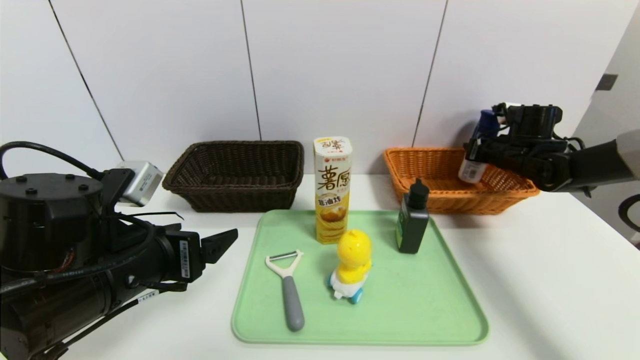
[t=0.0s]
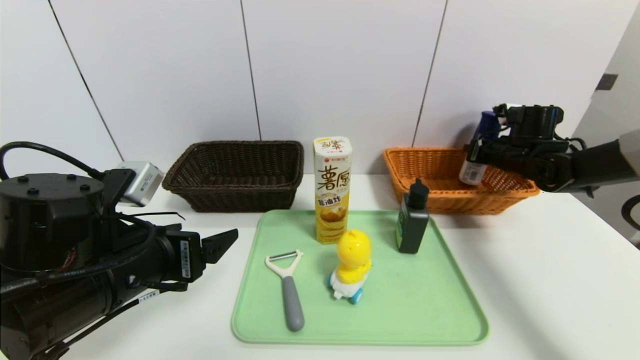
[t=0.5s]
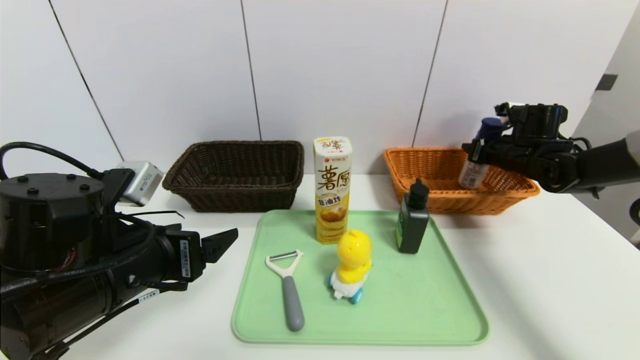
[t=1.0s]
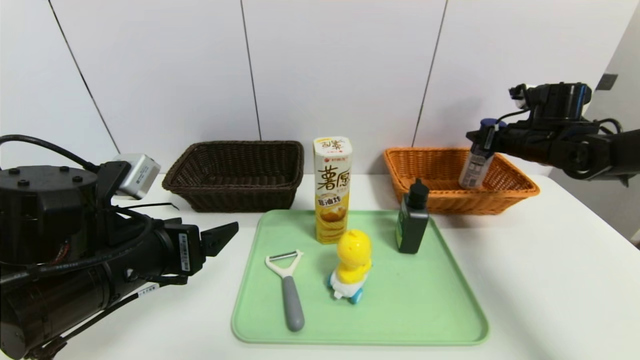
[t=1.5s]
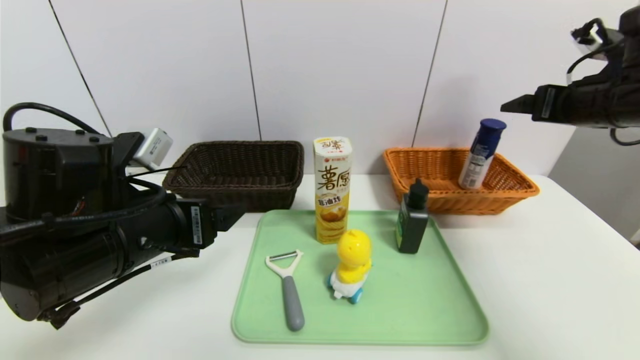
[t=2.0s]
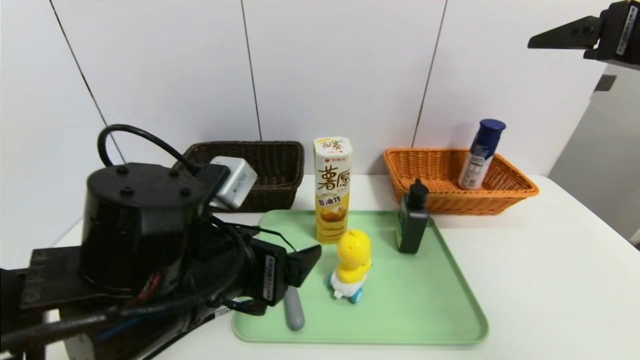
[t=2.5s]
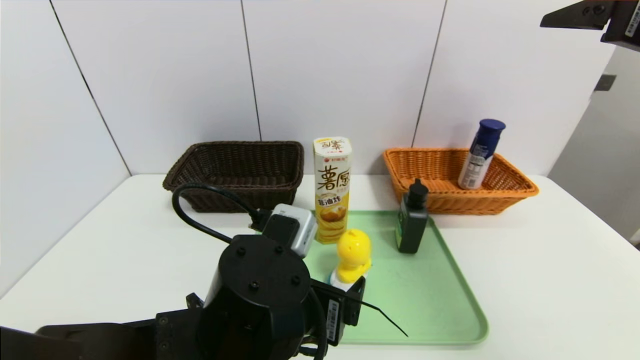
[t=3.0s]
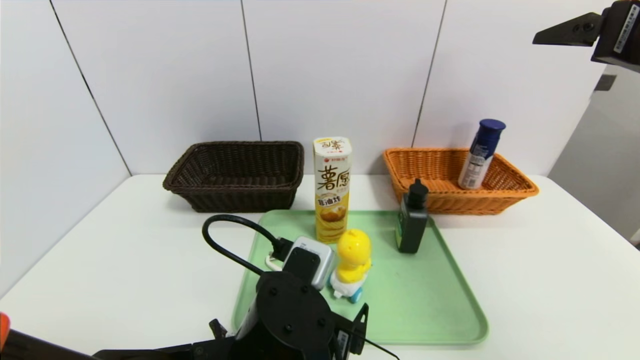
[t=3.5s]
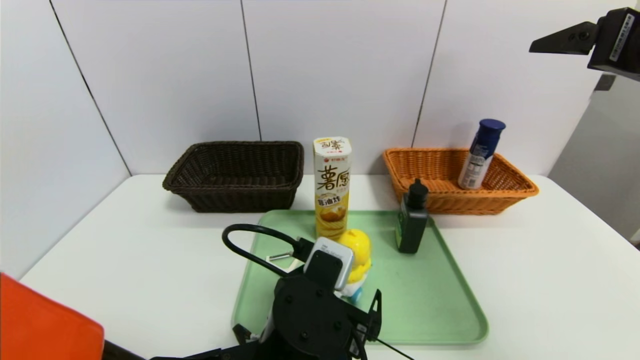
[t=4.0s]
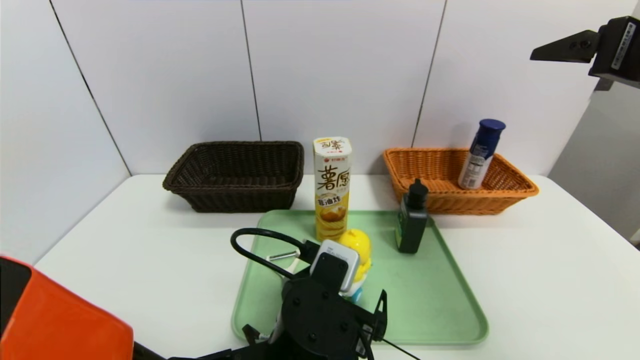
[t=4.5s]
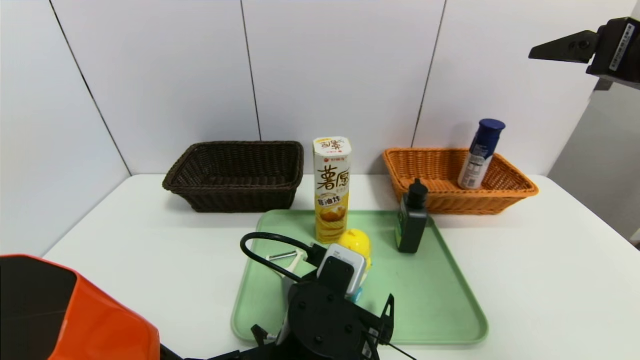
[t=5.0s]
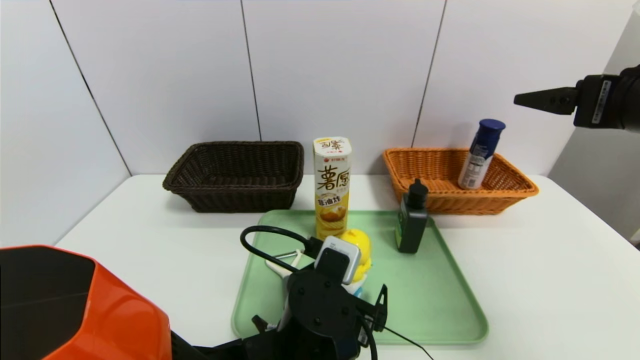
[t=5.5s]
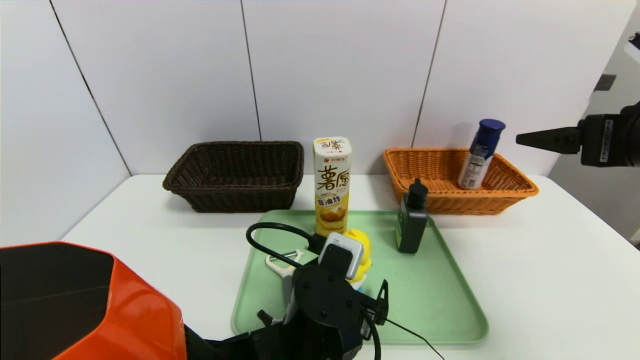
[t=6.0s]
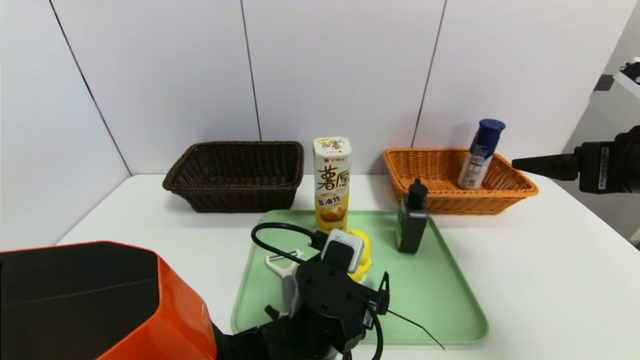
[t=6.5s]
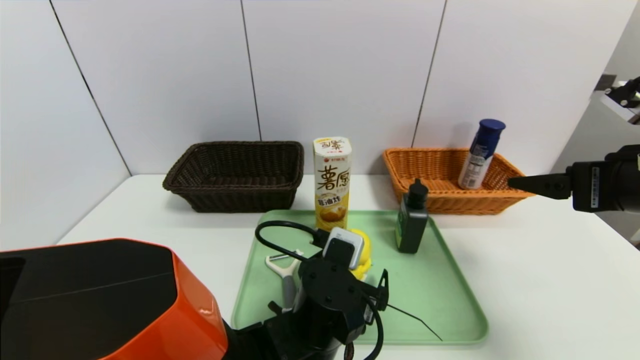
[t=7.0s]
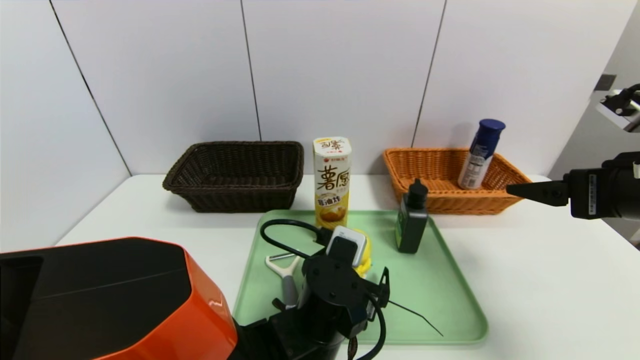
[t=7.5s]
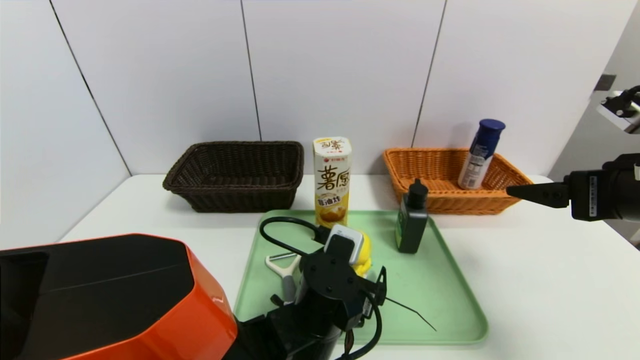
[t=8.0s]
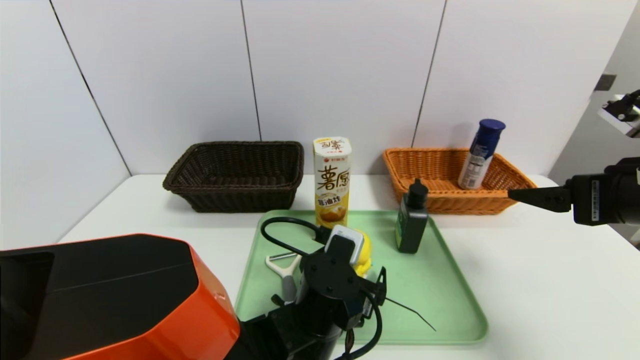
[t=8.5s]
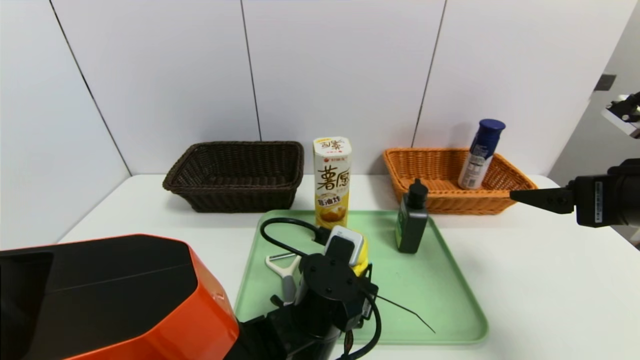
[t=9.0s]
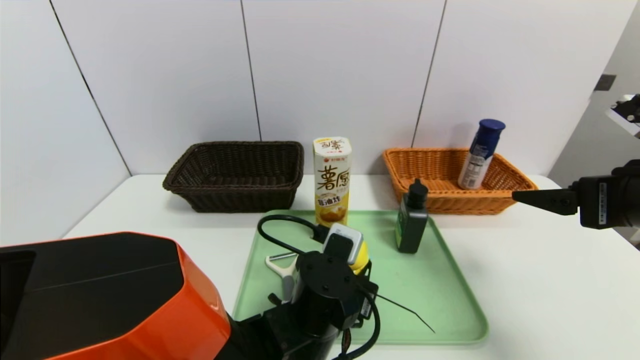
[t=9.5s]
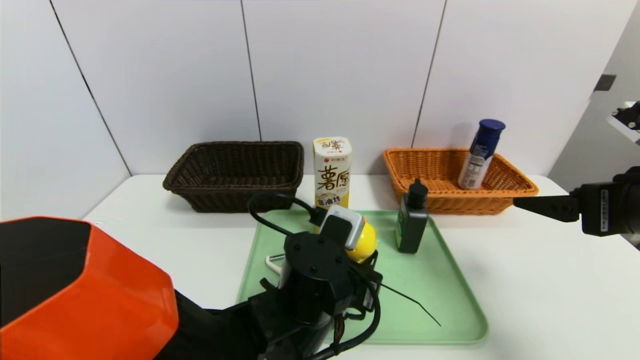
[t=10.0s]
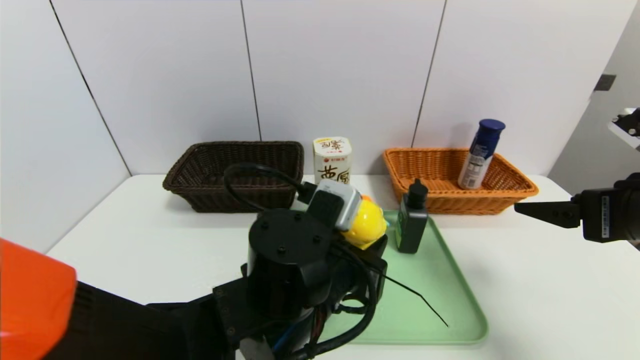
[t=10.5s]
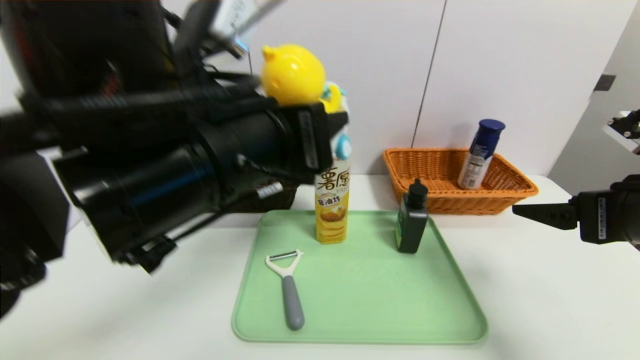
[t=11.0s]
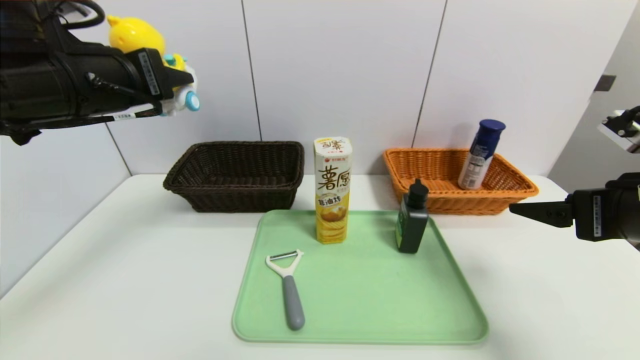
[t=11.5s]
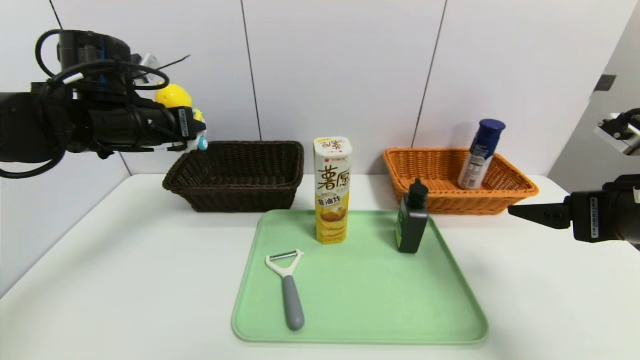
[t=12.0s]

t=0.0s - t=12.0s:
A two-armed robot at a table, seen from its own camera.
Task of the whole recording: place the food in the right basket with the right gripper, and place the non food items in the left basket with the left gripper.
Step, t=0.0s - t=2.0s: Grasp the yogurt and put it in the right basket.
t=0.0s - t=2.0s: The right gripper shifts approximately 20 cm upward and backward, and opens.
t=2.0s - t=4.0s: The left gripper shifts about 20 cm to the right and downward. The right gripper heads backward and upward, covering roughly 10 cm.
t=4.0s - t=6.0s: The right gripper shifts roughly 5 cm downward.
t=6.0s - t=8.0s: The grippers make only small movements.
t=8.0s - t=10.0s: The left gripper closes.
t=10.0s - t=12.0s: The left gripper travels to the left, upward and forward by some 30 cm.

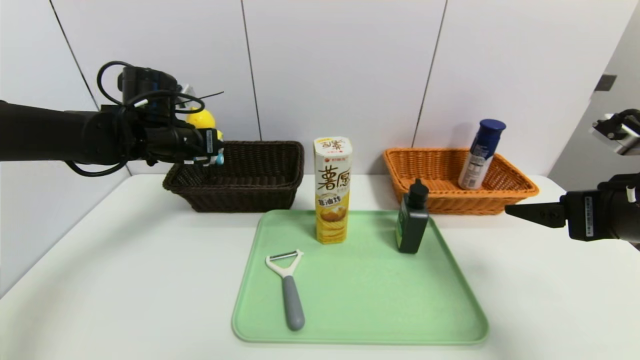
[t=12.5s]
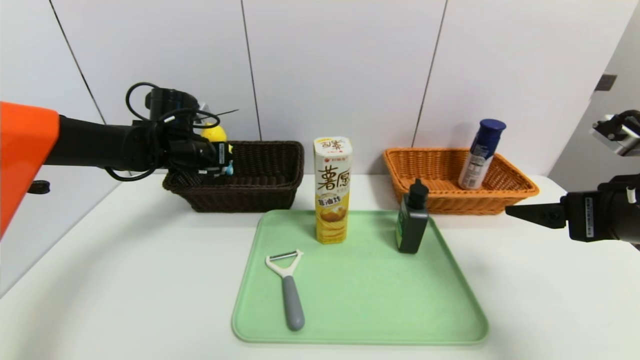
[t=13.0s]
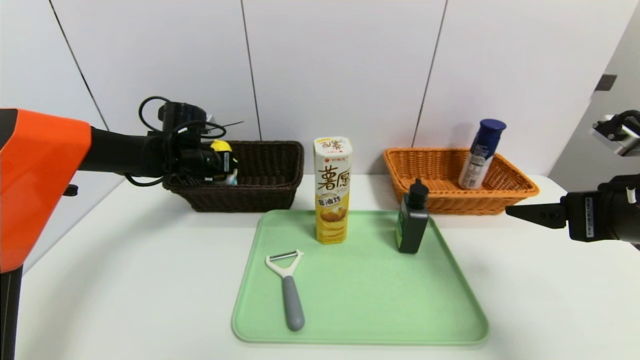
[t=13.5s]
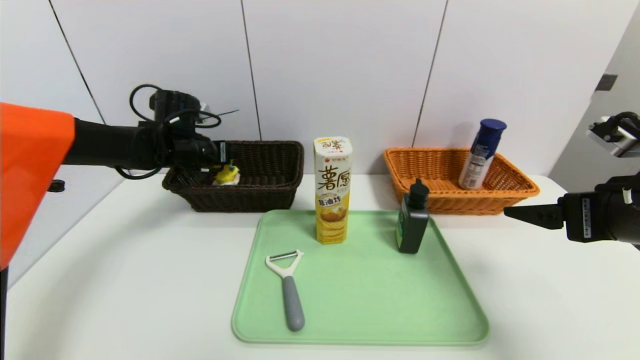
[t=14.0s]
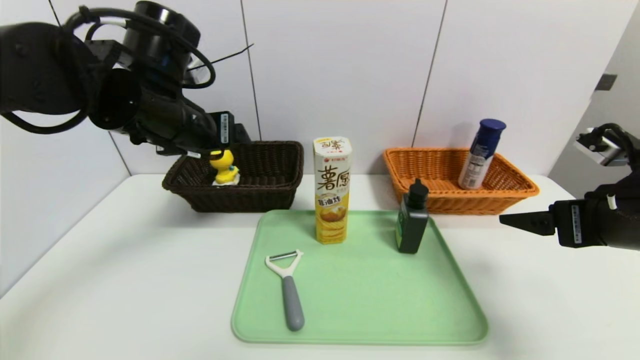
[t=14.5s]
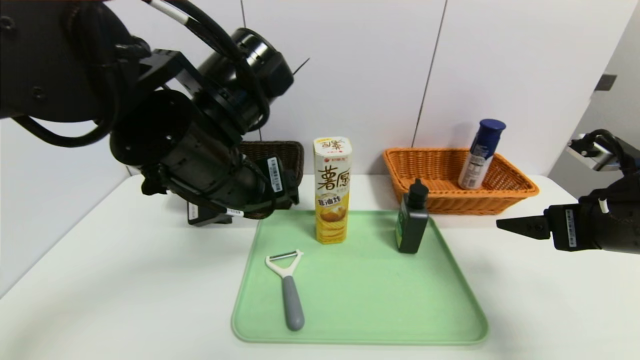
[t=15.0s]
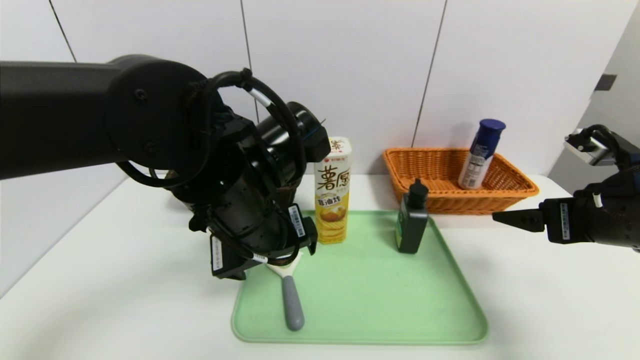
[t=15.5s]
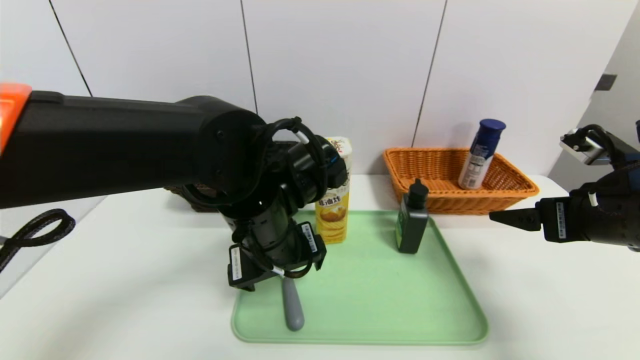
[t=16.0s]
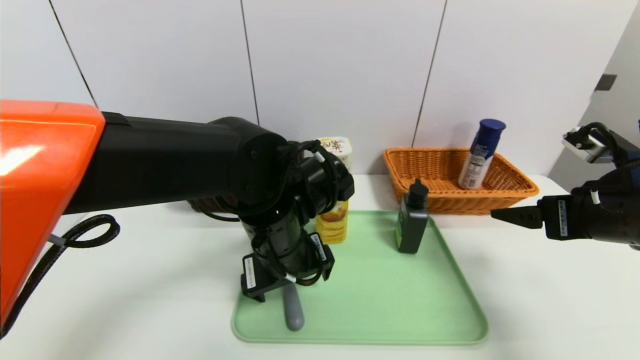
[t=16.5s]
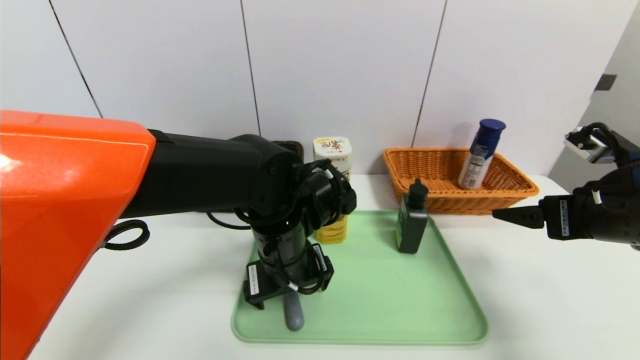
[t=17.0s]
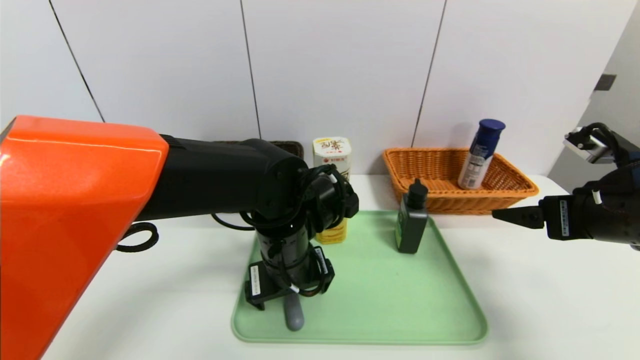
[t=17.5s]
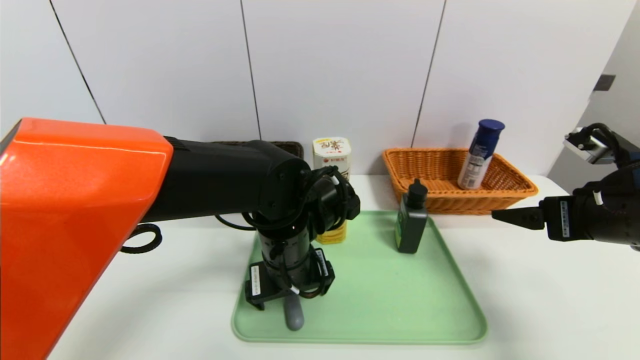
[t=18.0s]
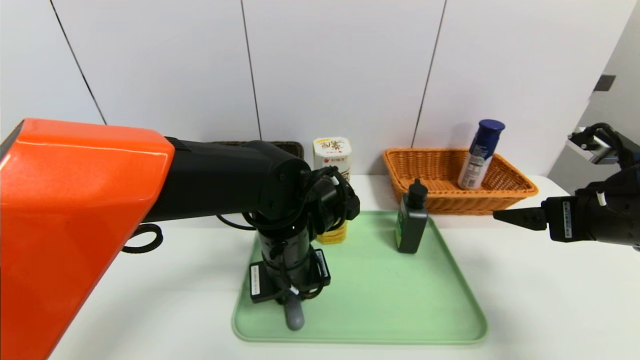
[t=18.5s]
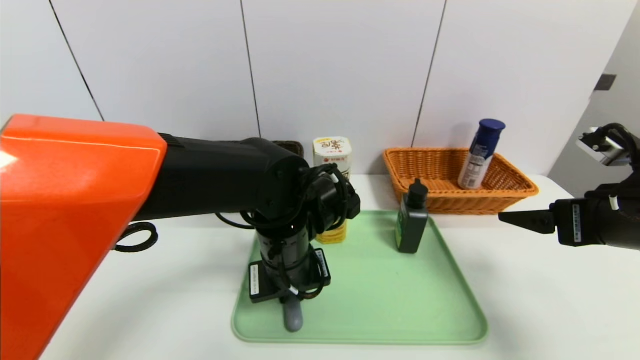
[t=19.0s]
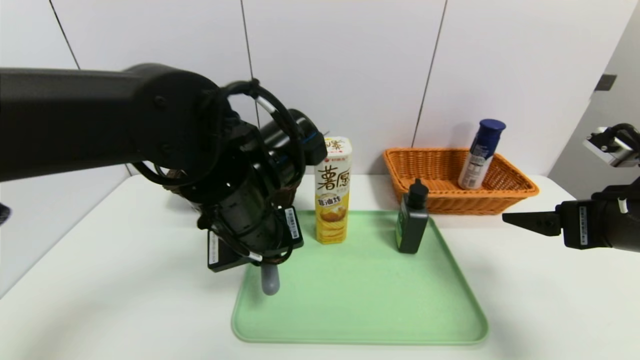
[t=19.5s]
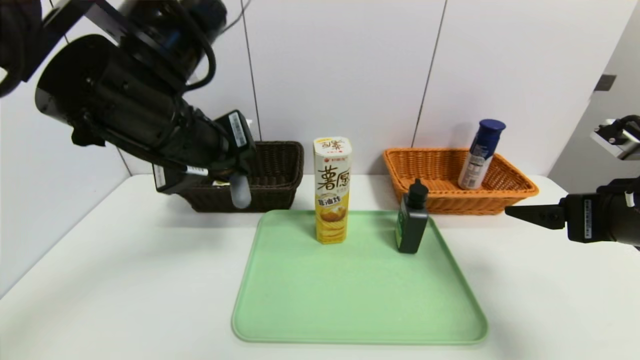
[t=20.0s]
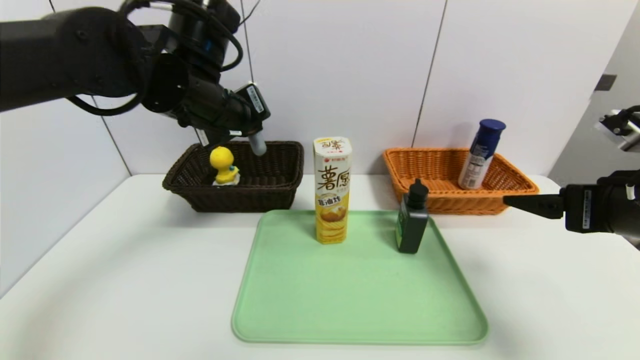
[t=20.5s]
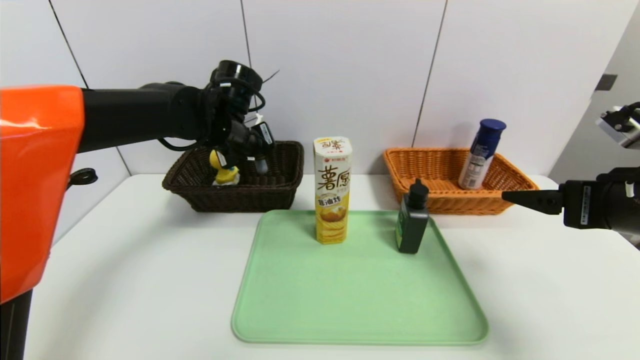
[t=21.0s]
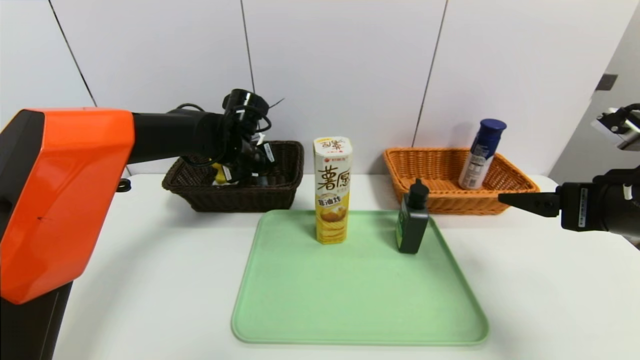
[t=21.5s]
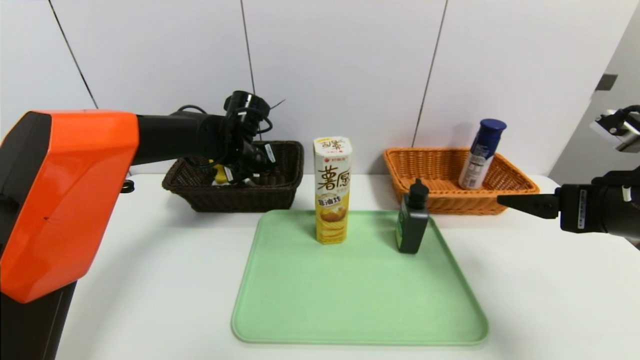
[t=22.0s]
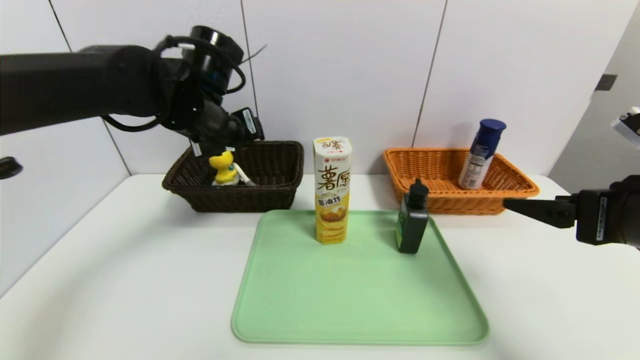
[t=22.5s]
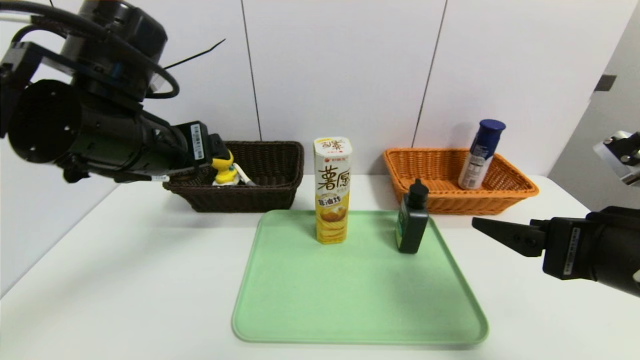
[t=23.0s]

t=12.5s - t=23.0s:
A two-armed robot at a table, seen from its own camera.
Task of the whole recording: place the food in the right basket with the right gripper, and place the non food items in the left basket with the left gripper.
Step, t=14.5s - t=22.0s: Grasp the peeler and put it in the left basket.
t=12.5s - t=14.5s: The left gripper goes about 15 cm backward, to the right and upward, and opens up.
t=14.5s - t=16.5s: The left gripper shifts some 20 cm to the right, downward and backward.
t=16.5s - t=19.0s: The left gripper closes up.
t=19.0s - t=21.0s: The left gripper travels forward, to the left and upward by roughly 20 cm.
t=21.0s - t=23.0s: The right gripper moves to the left and backward, about 10 cm. The left gripper moves backward, some 15 cm, and opens.
